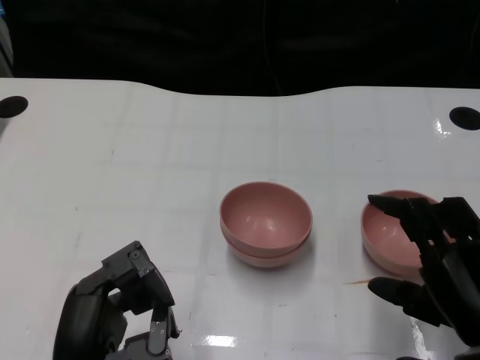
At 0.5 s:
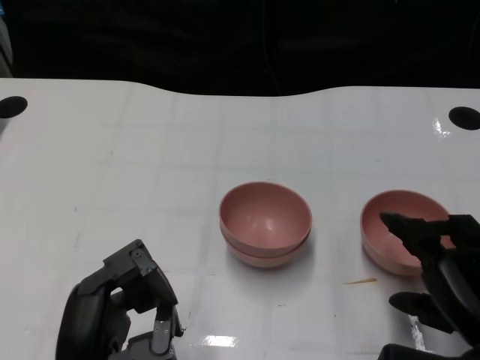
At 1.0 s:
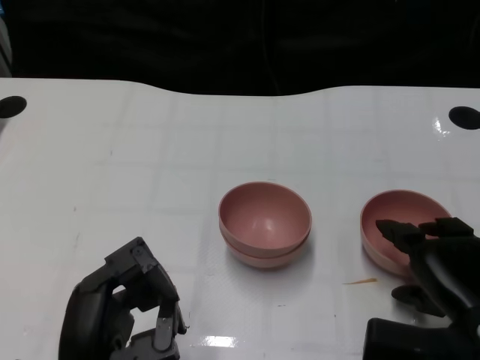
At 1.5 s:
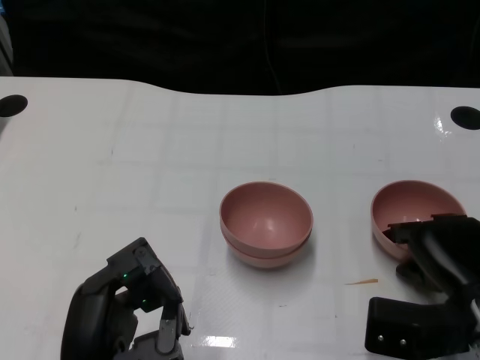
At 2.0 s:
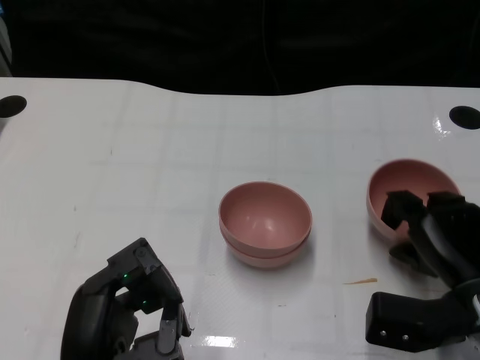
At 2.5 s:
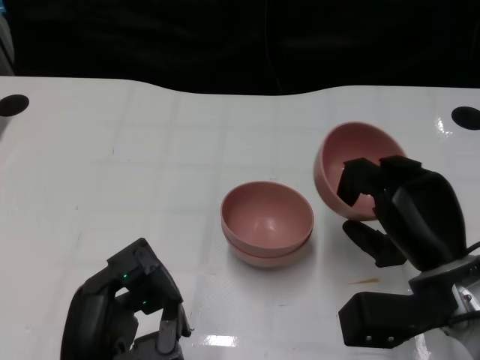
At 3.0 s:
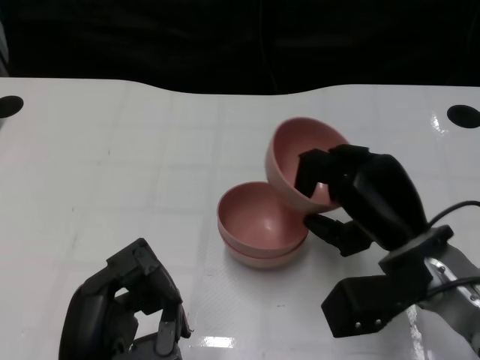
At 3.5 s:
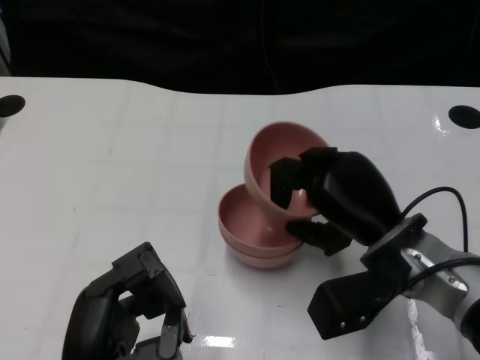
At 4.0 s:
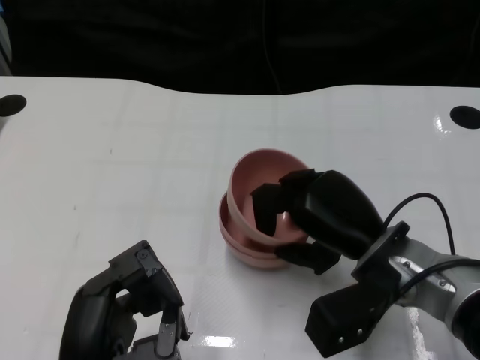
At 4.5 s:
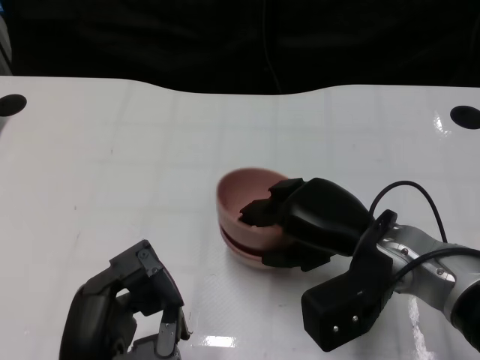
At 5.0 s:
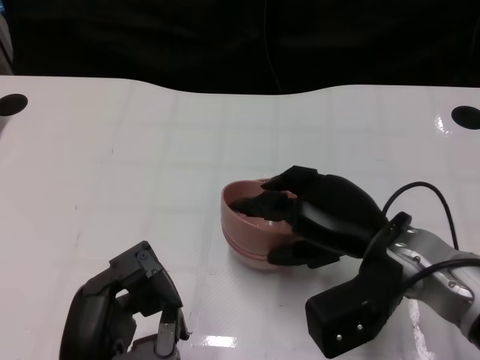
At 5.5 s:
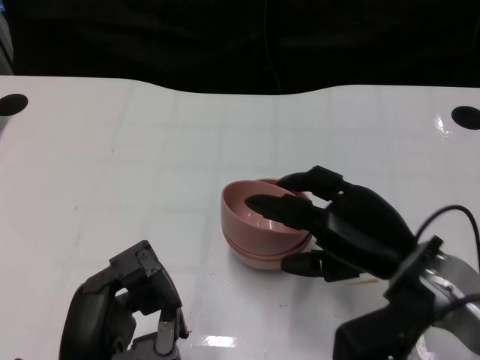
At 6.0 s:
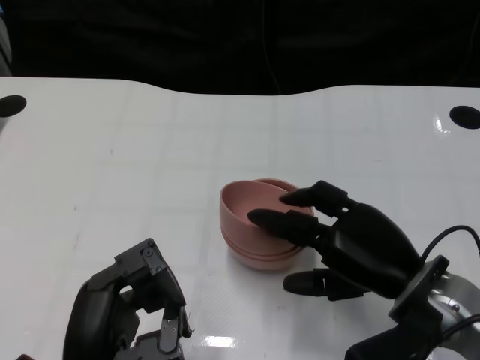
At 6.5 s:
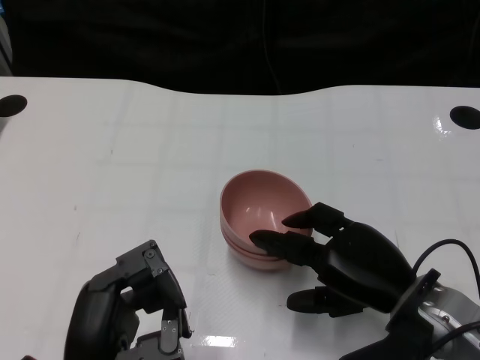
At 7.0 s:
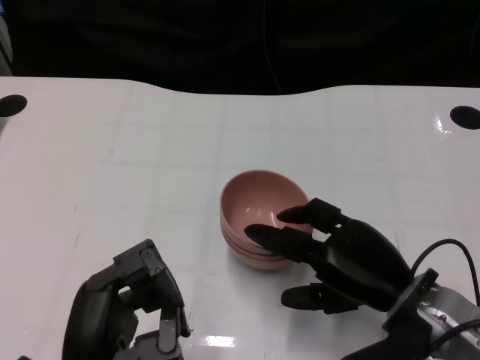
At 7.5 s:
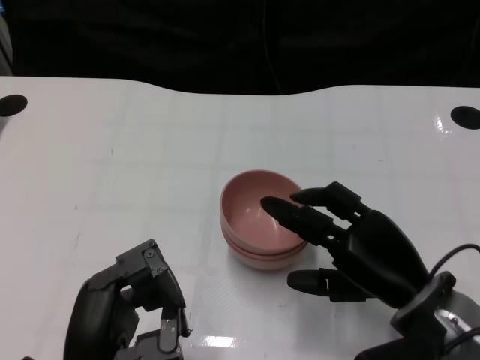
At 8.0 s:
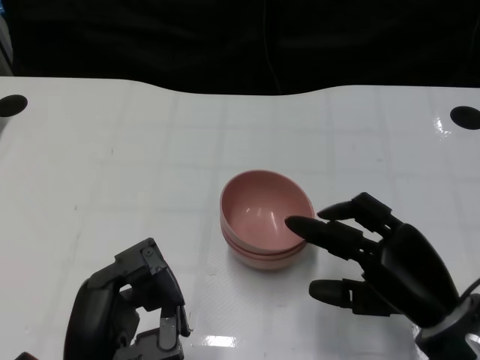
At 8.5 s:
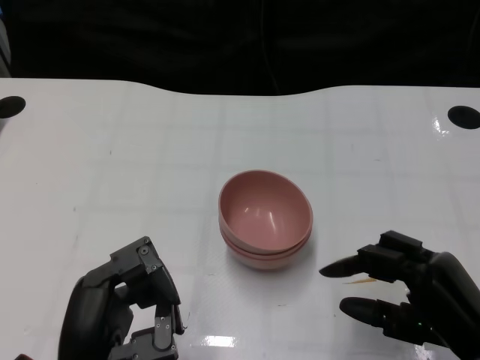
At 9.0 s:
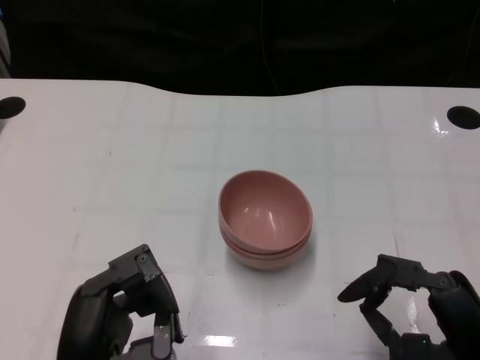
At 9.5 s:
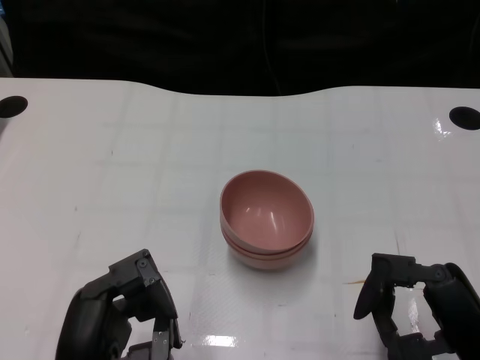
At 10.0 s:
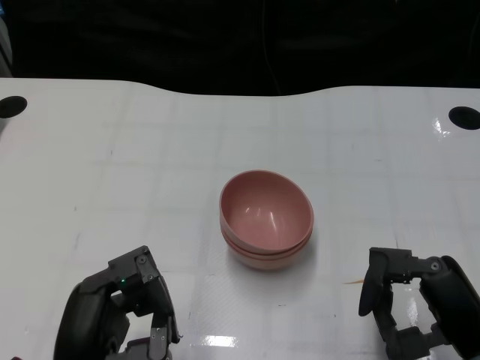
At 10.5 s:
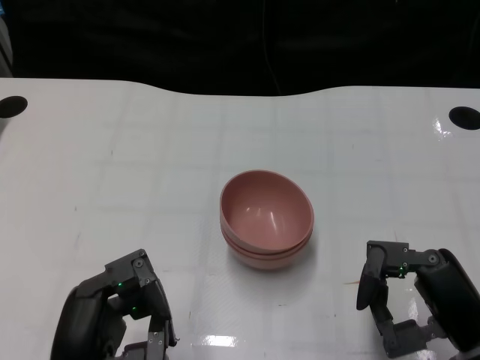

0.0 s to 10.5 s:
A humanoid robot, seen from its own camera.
Task of the whole recording: Pick up the bowl on one side of the table and place it on top of the middle bowl, then pick up the bowl on the other side of the table and place it on top of the middle bowls.
Step, 0.0 to 2.0 s: Grasp the bowl on the right with the right gripper.
Step, 2.5 to 7.0 s: Place the bowl on the right onto the bowl in the middle with right gripper.
0.0 to 2.0 s: The right hand shifts approximately 5 cm forward.
2.0 to 4.0 s: The right hand travels to the left by roughly 10 cm.
4.0 to 6.5 s: The right hand changes place by about 5 cm.
6.5 to 8.5 s: The right hand heads backward and to the right, covering about 10 cm.
